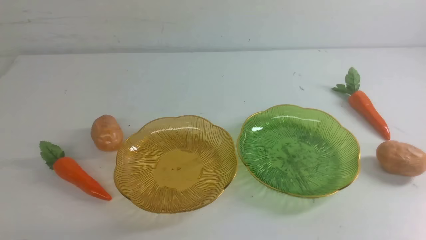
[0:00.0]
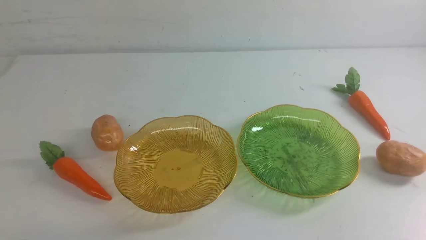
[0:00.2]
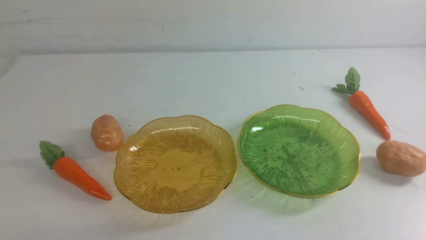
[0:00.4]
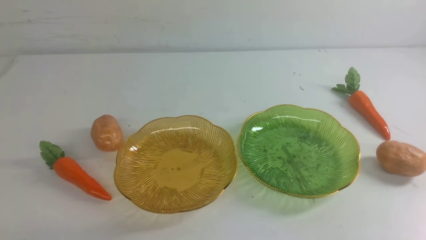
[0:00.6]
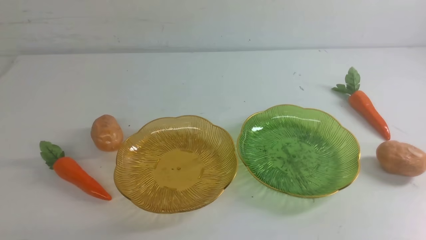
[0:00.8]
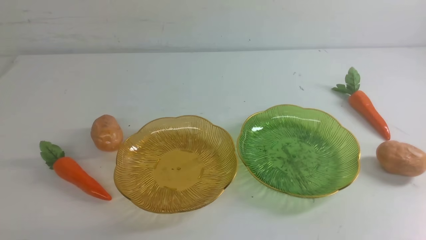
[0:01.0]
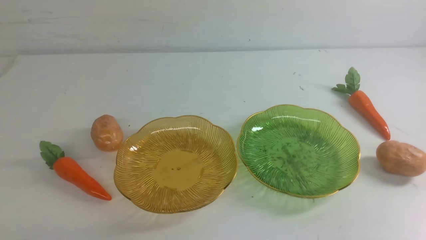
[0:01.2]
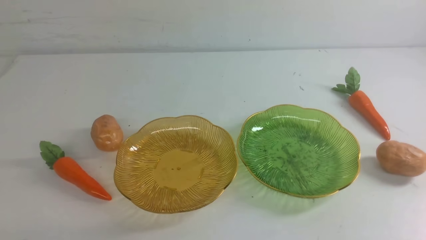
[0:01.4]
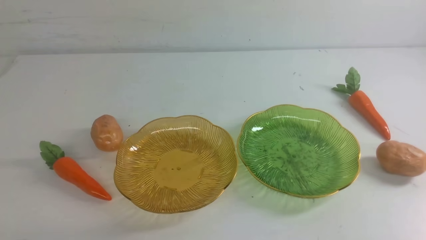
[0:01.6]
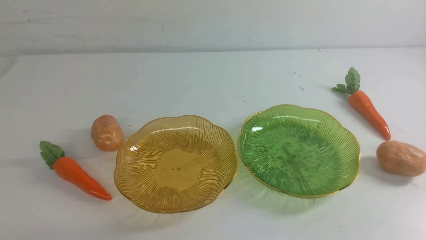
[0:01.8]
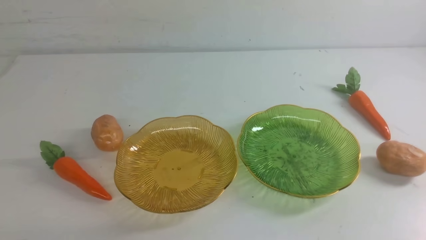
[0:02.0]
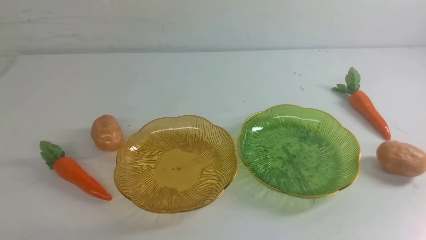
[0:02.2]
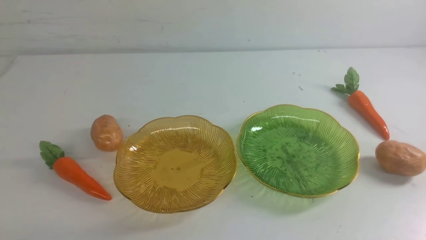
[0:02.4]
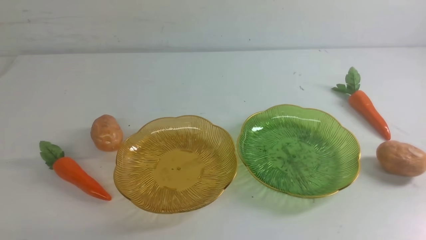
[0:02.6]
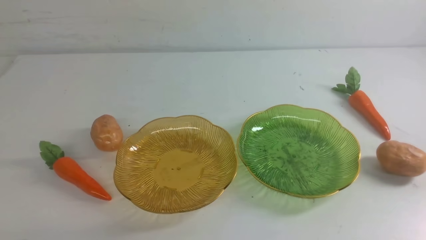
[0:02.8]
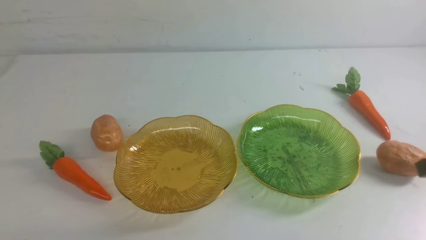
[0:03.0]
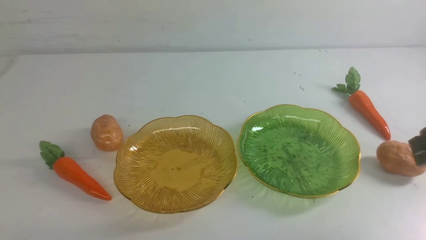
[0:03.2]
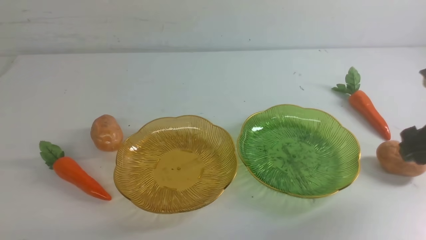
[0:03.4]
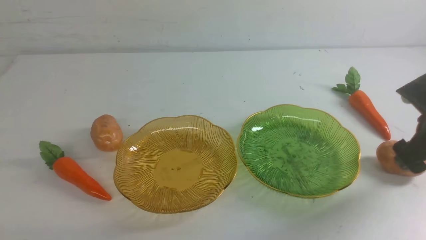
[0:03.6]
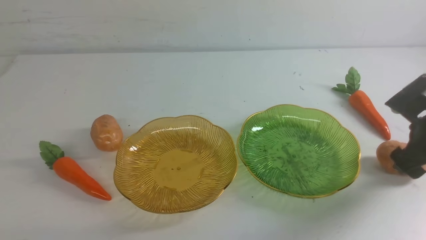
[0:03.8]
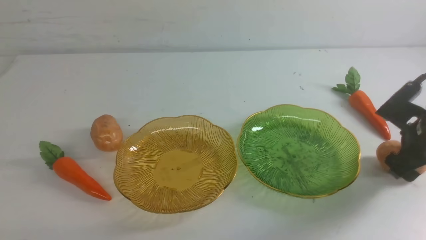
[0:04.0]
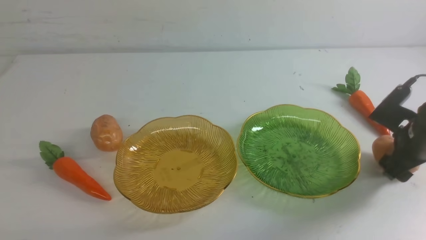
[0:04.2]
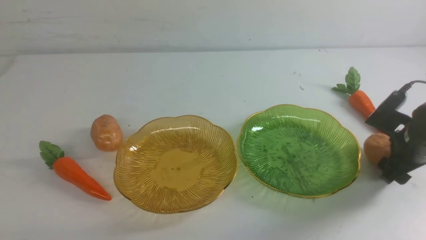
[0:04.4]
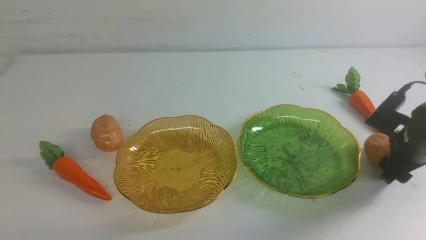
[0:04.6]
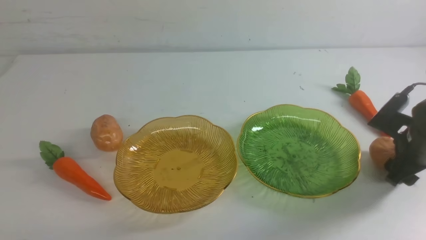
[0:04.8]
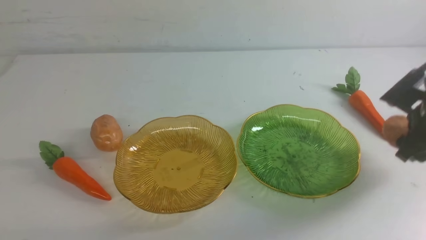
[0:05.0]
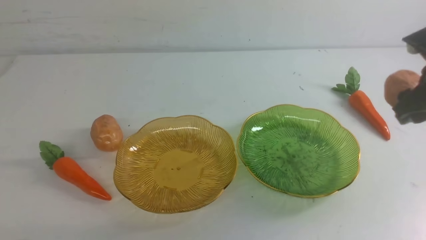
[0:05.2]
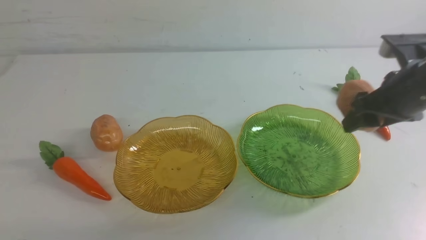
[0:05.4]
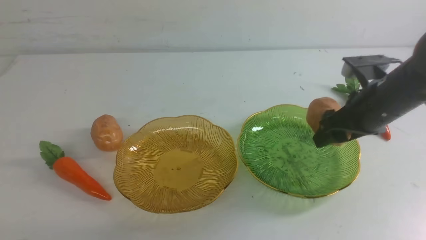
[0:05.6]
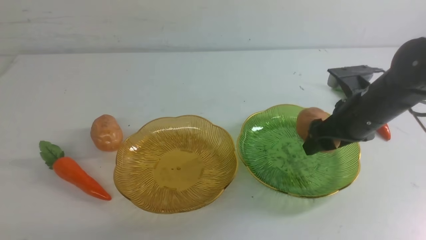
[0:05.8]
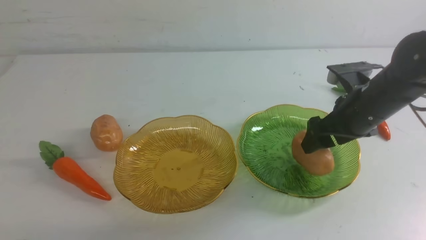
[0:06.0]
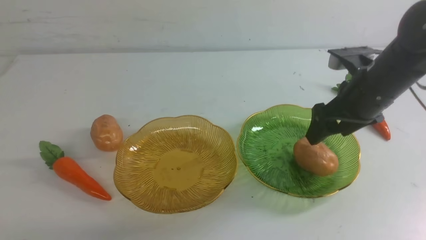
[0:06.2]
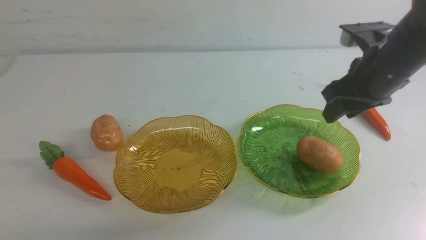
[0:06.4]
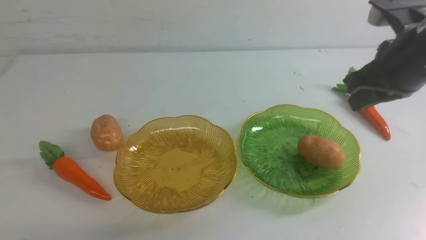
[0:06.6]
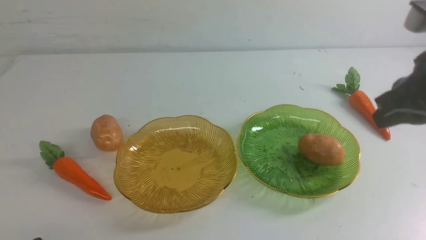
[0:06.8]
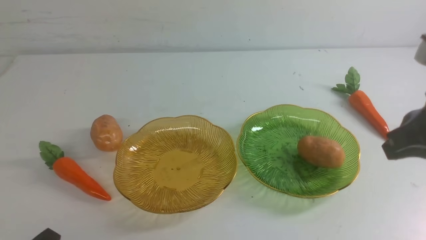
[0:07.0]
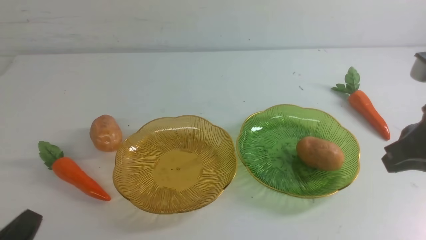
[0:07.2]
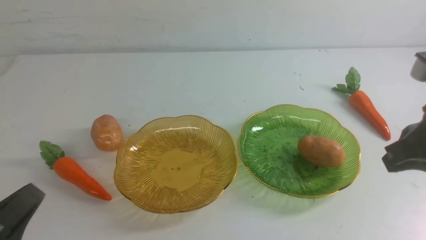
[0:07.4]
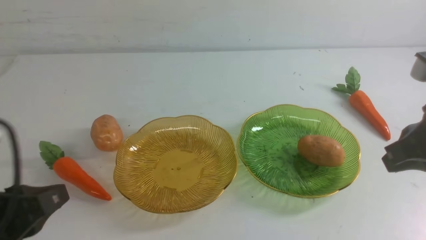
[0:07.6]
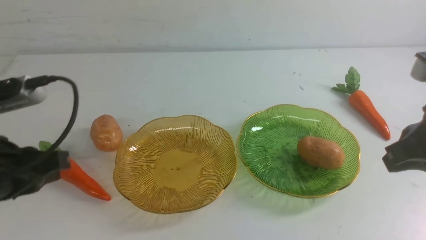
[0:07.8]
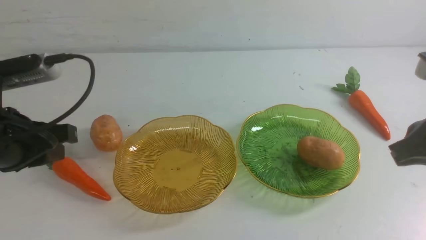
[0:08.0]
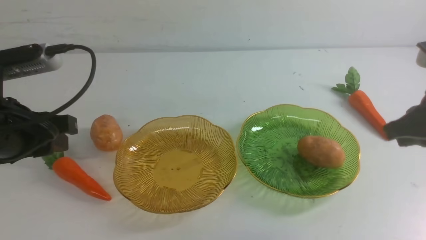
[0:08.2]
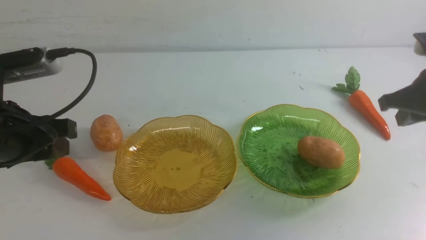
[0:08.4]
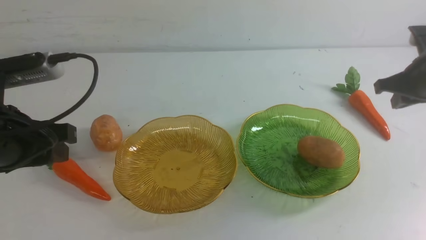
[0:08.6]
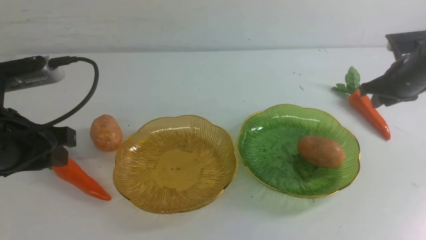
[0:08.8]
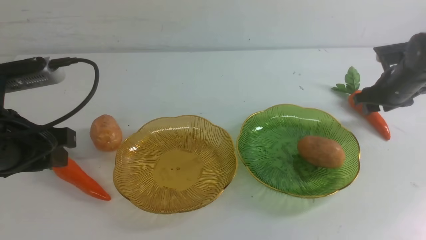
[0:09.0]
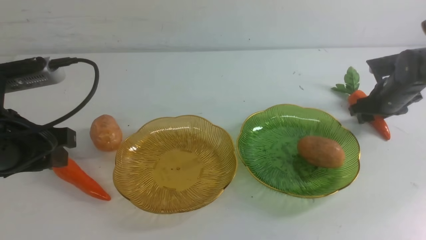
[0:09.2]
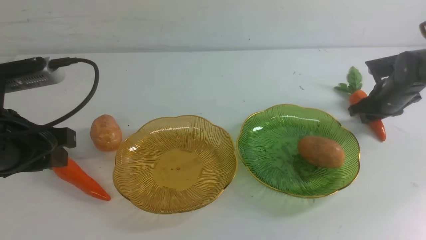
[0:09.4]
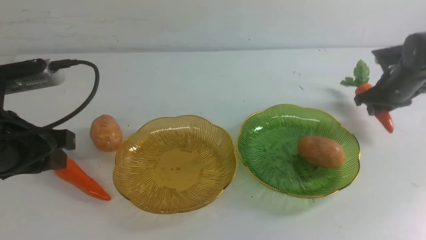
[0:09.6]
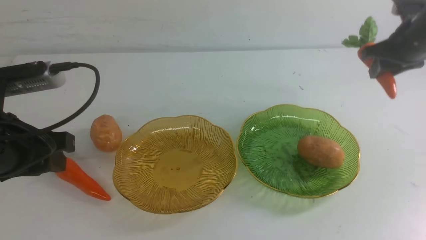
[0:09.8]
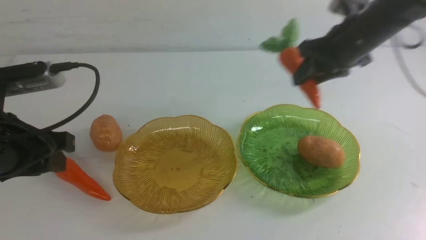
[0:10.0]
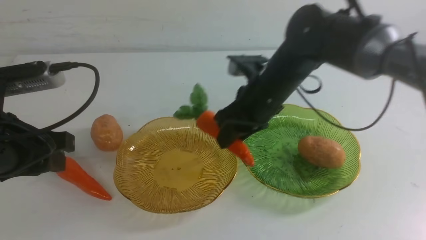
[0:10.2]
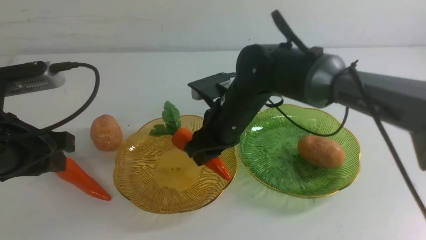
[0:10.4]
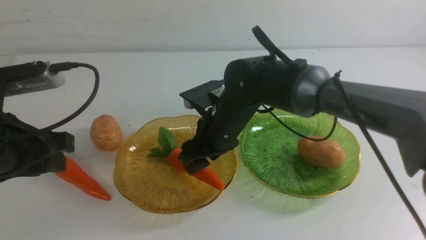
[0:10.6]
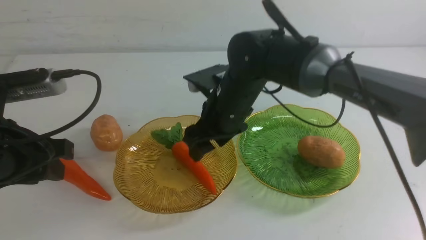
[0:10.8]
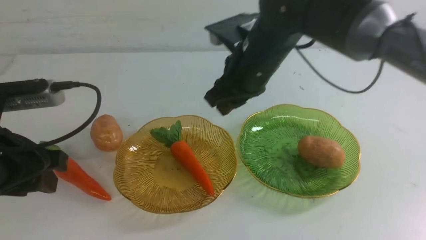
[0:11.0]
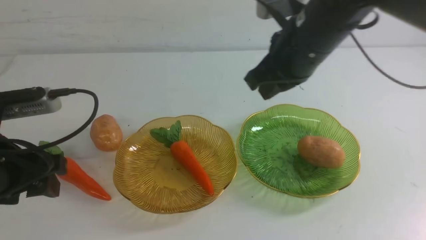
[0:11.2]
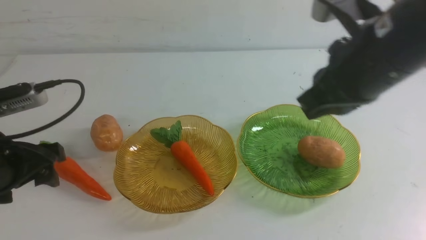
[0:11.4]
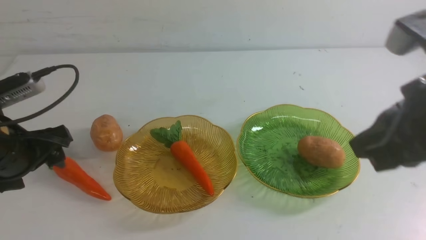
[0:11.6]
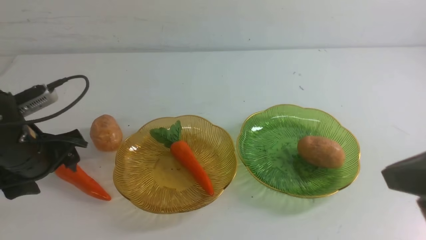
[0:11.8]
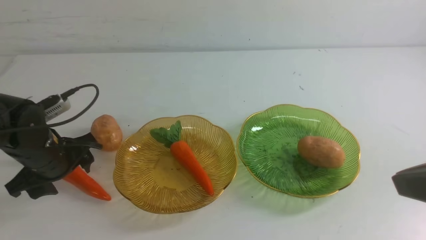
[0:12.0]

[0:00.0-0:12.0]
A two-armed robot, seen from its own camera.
Step, 0:00.0 to 0:06.2: Grab a potato with your right arm and put it on the right plate.
Step, 0:06.4 to 0:10.8: use the right arm to grab a carrot and put it into the left plate.
0:03.0 to 0:04.4: The right gripper shifts about 15 cm downward and forward.
0:04.4 to 0:06.0: The right gripper goes some 15 cm to the left and upward.
0:06.0 to 0:07.6: The right gripper moves backward and upward, approximately 15 cm, and closes up. The left gripper shifts approximately 15 cm upward and forward.
0:07.6 to 0:09.0: The left gripper shifts some 10 cm forward, and opens up. Meanwhile the right gripper goes about 30 cm forward and downward, and opens up.
0:09.0 to 0:10.4: The right gripper is displaced to the left by approximately 30 cm.
0:10.4 to 0:12.0: The left gripper goes approximately 20 cm downward and forward, while the right gripper goes some 35 cm backward, to the right and upward, and closes up.

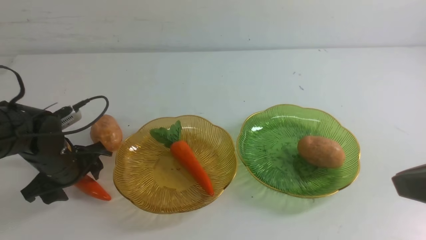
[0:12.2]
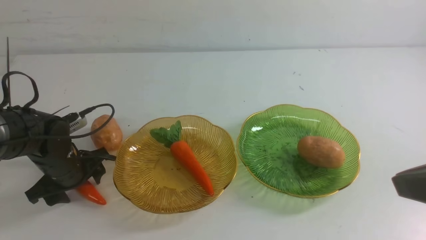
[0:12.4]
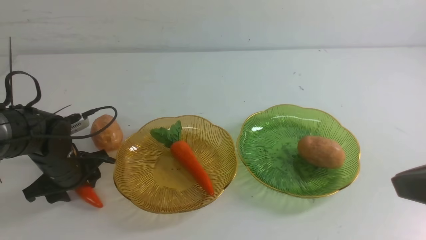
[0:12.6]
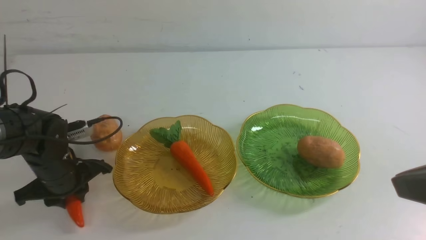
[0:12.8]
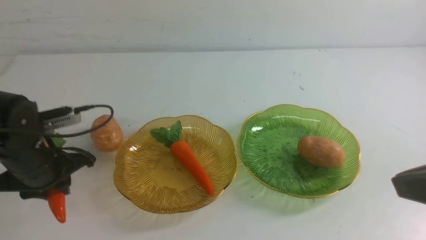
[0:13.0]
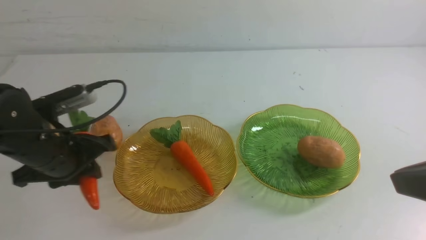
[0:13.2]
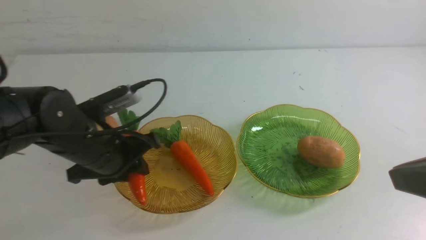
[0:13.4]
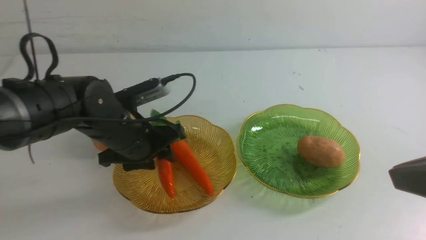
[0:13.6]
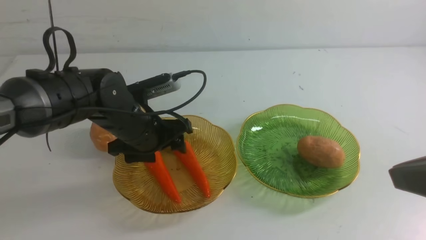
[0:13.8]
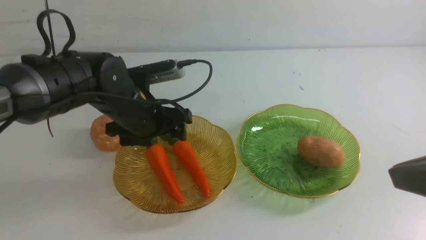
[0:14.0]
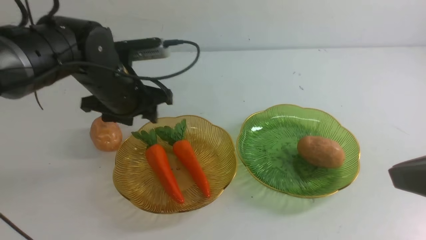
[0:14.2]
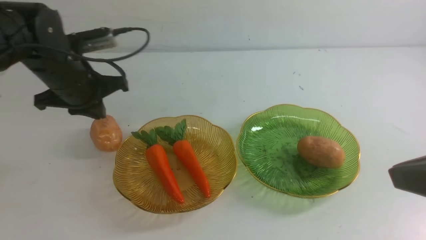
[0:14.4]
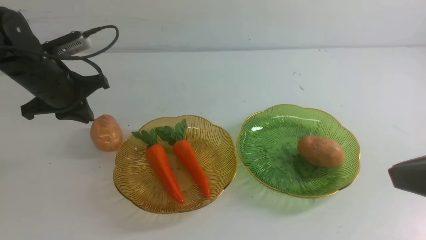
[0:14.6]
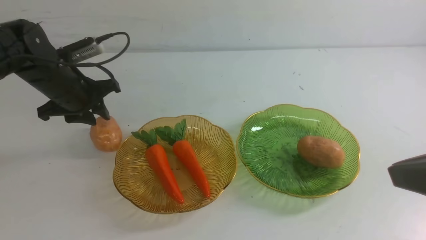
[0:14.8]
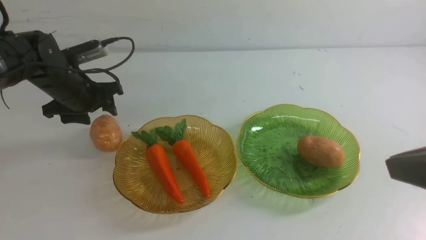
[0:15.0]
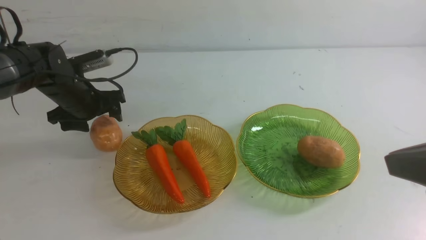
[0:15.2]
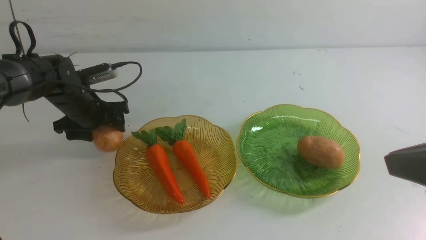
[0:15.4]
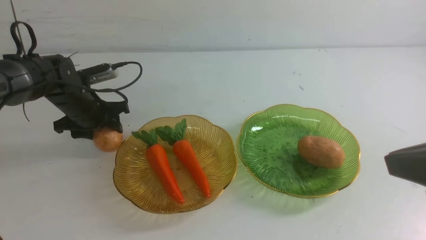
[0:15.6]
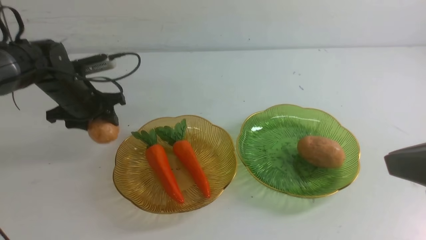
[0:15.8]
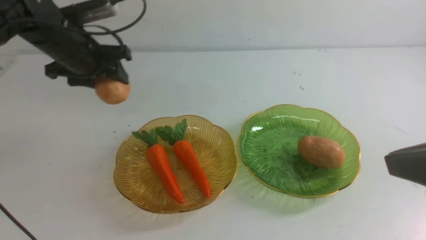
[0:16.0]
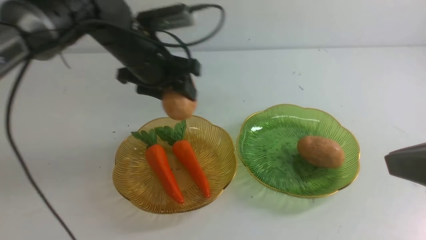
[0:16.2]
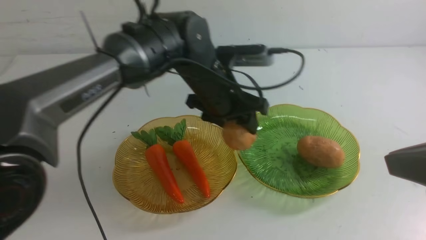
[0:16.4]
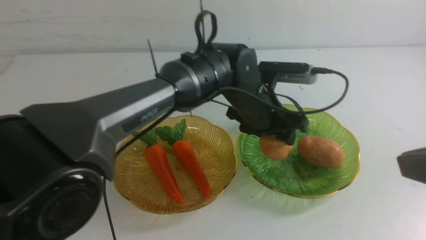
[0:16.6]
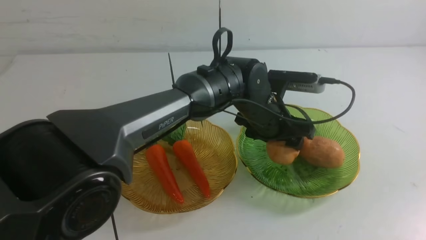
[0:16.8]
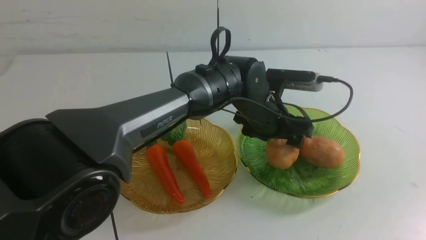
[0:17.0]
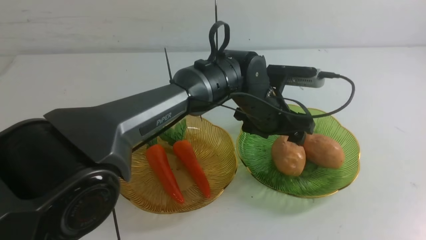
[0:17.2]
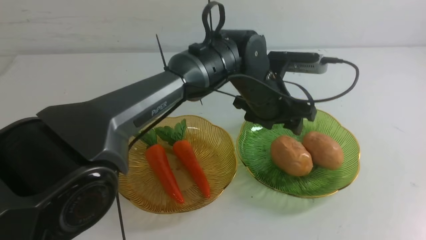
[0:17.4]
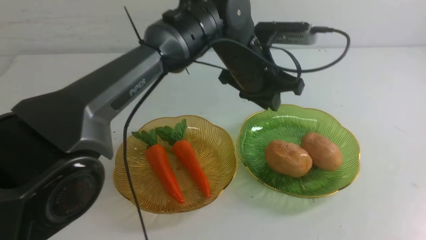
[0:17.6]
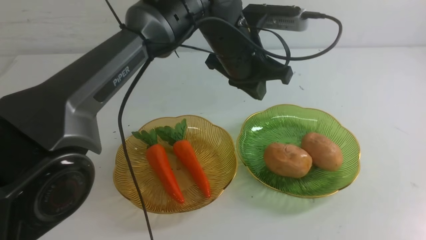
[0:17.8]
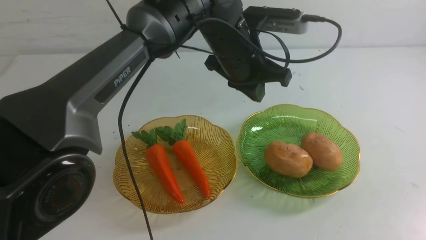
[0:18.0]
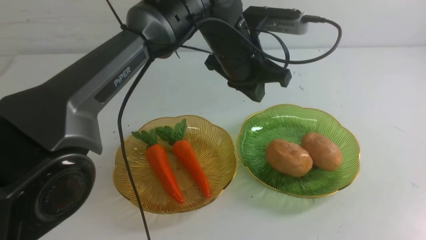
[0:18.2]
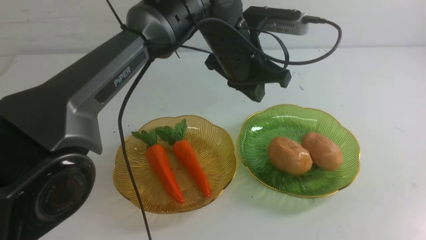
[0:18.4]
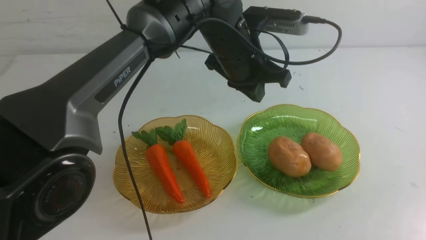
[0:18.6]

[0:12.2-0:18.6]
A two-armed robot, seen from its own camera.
Step, 0:12.2 to 0:14.0: use the left arm to grab a carrot and put it into the left plate.
Step, 0:14.2 to 0:17.4: Grab a potato with your left arm and put it on the right plate.
0:12.2 to 0:13.8: The left gripper heads upward and forward, covering approximately 15 cm, reaches about 10 cm to the right, then returns, and opens, then closes once more.
0:13.8 to 0:15.4: The left gripper moves approximately 10 cm downward and comes back, and opens.
0:15.4 to 0:17.0: The right gripper moves backward and to the right, some 15 cm. Meanwhile the left gripper is displaced to the right by some 25 cm.
0:17.0 to 0:18.6: The right gripper goes approximately 15 cm downward and forward. The left gripper goes about 10 cm upward, and closes.
